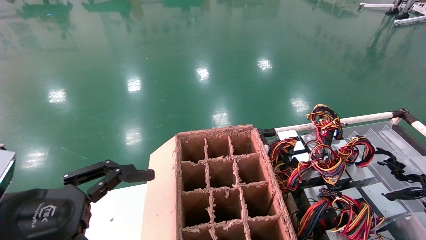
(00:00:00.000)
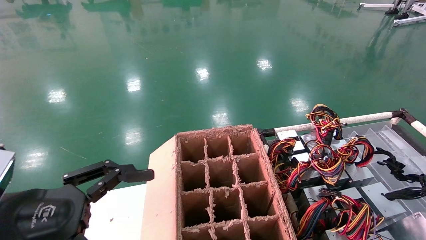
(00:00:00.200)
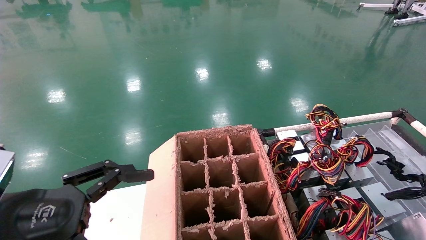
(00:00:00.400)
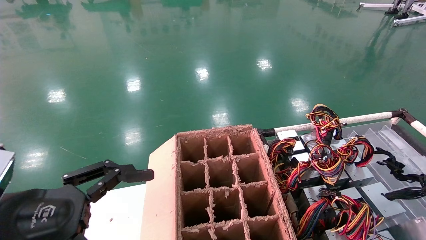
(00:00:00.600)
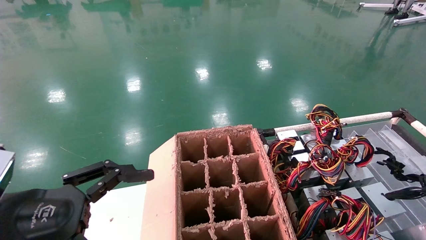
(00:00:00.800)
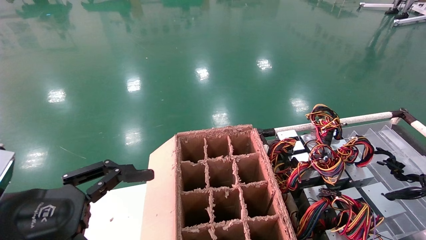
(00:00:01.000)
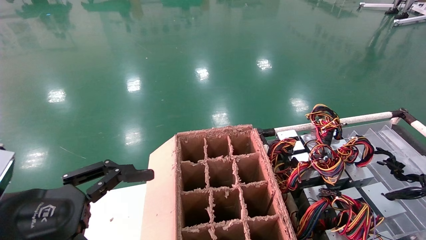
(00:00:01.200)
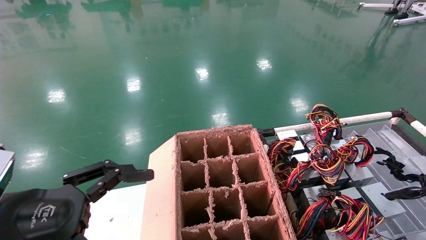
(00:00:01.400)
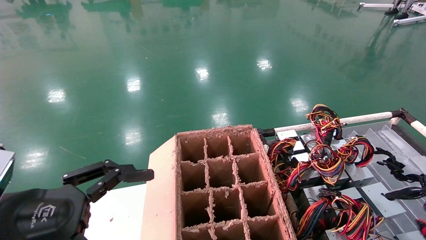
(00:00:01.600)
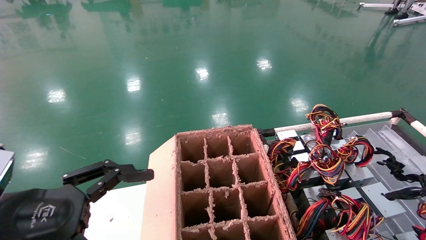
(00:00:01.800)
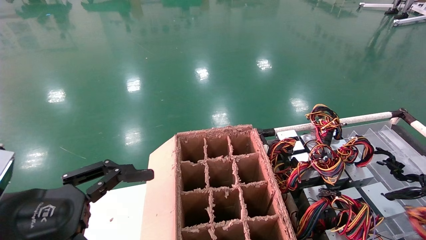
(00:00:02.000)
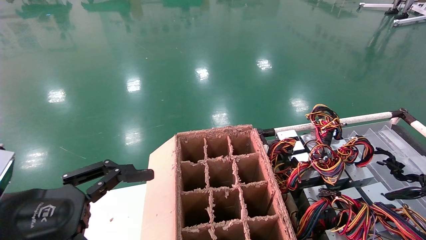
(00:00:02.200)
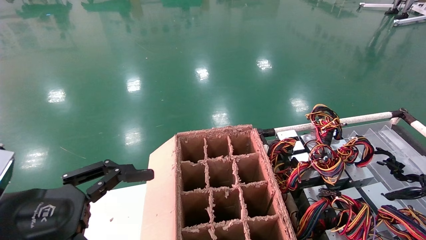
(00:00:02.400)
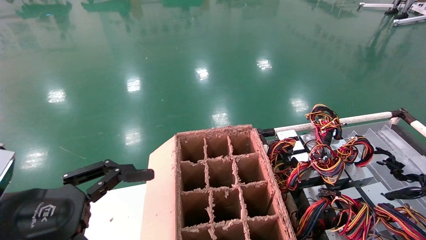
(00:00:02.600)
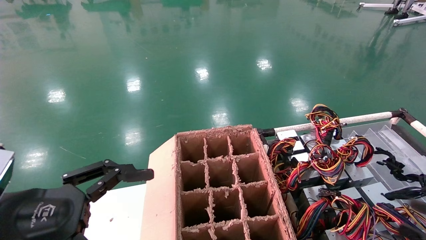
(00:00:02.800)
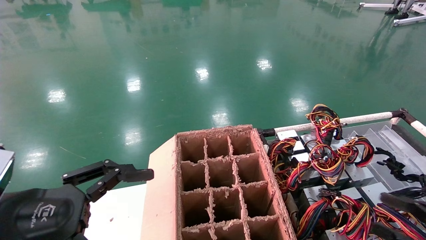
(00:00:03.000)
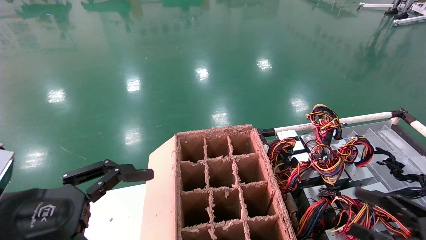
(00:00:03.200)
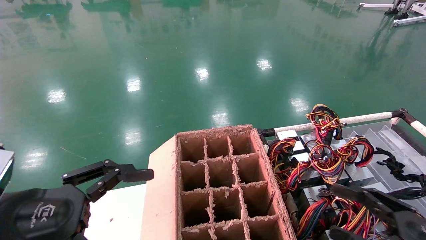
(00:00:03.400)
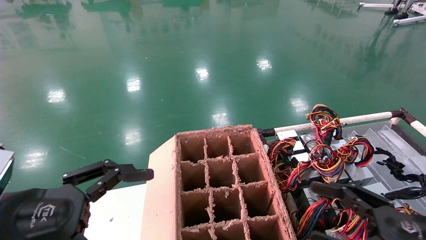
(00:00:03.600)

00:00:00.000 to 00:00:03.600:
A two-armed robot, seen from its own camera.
Step, 00:00:00.000 to 00:00:02.200: Place the power supply on the operating table.
00:00:00.000 to 00:00:01.800: The grippers make only small movements.
00:00:01.800 to 00:00:03.600: The right gripper goes roughly 20 cm to the left and forward, and opens its fingers.
